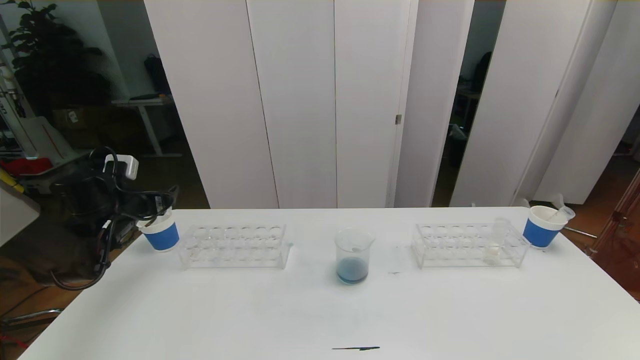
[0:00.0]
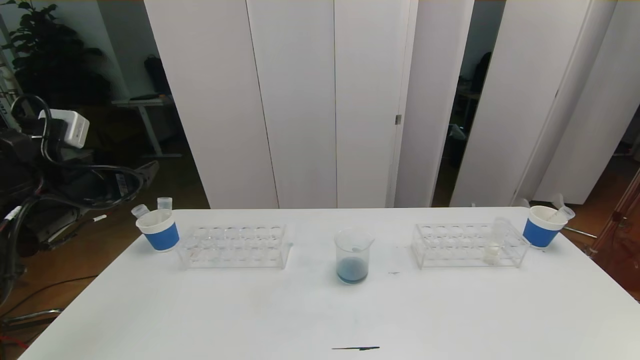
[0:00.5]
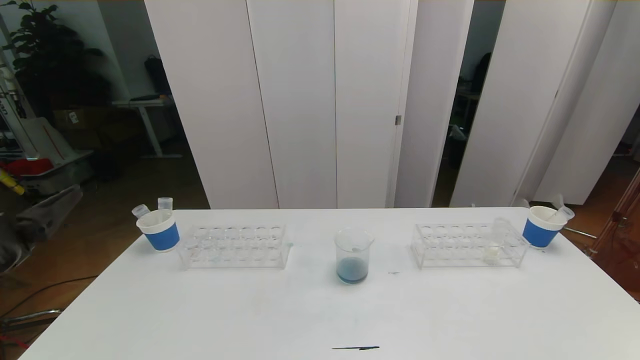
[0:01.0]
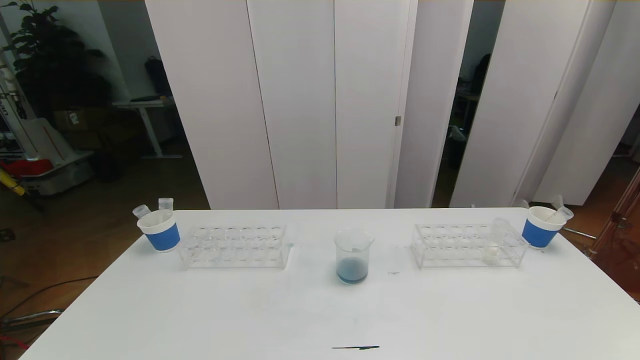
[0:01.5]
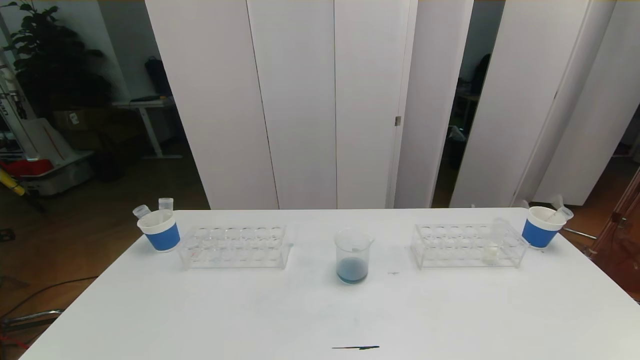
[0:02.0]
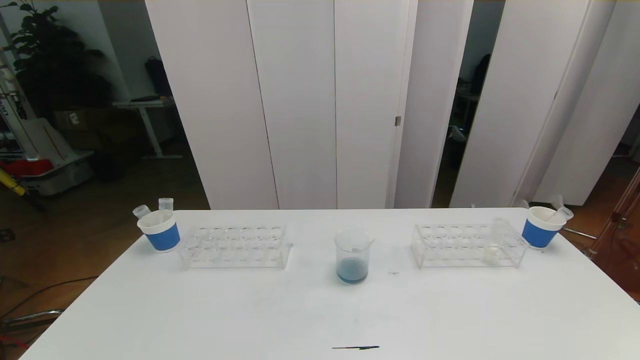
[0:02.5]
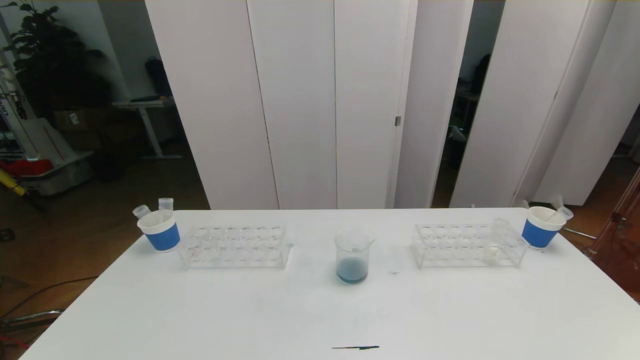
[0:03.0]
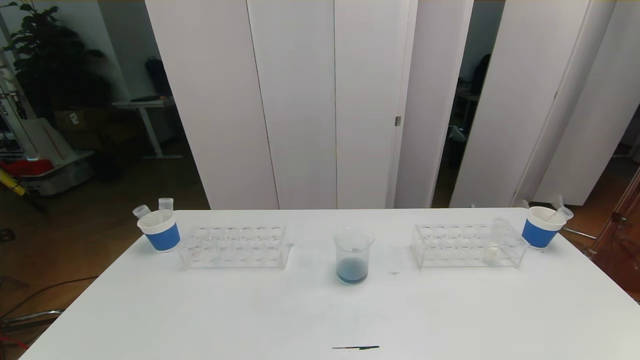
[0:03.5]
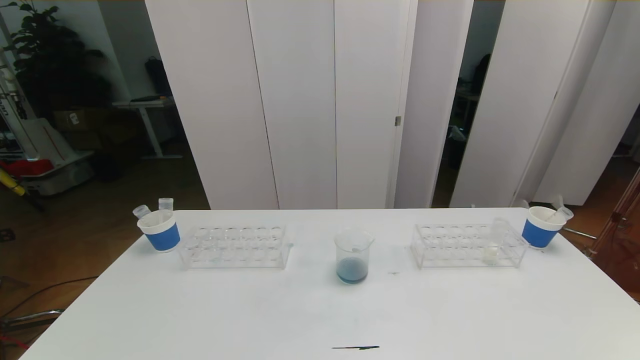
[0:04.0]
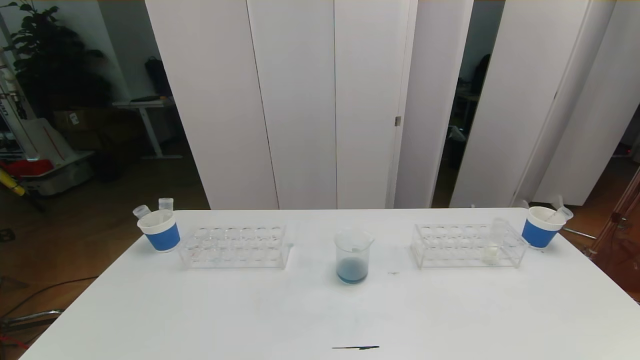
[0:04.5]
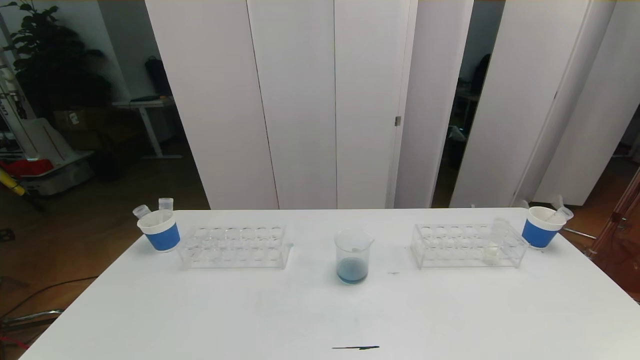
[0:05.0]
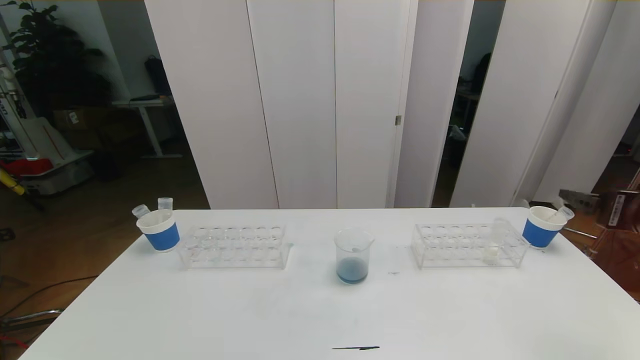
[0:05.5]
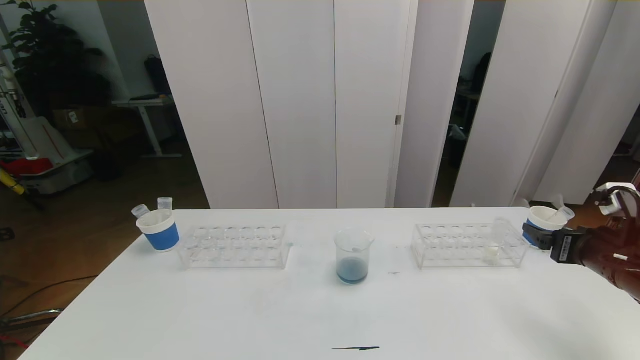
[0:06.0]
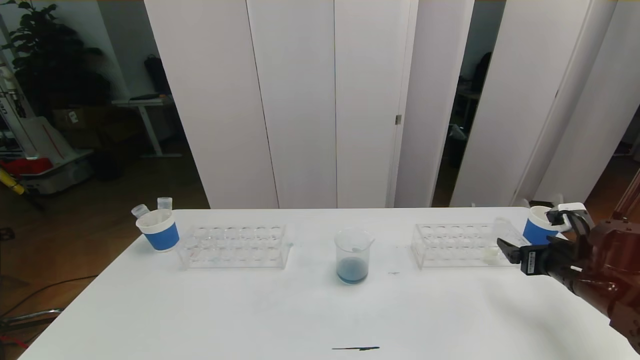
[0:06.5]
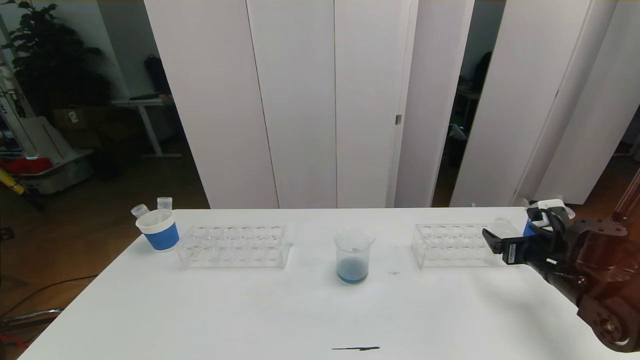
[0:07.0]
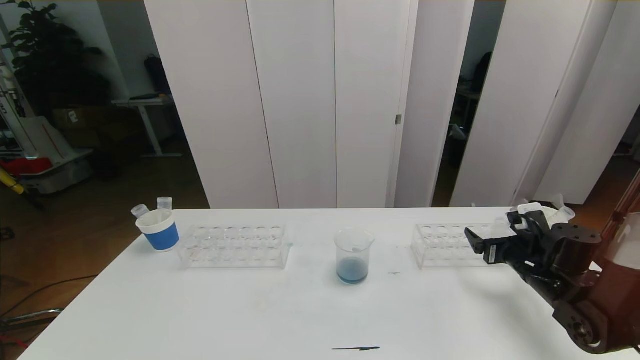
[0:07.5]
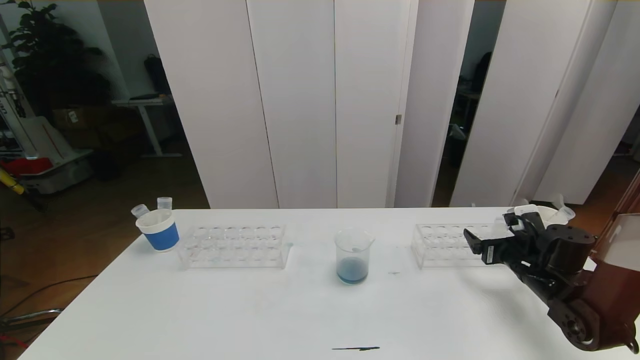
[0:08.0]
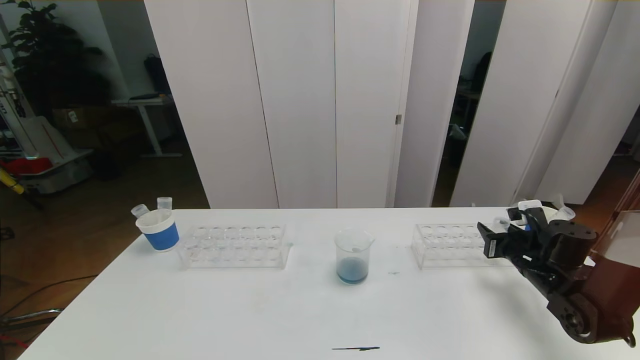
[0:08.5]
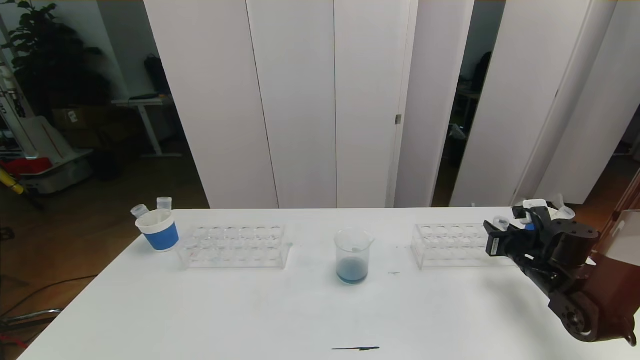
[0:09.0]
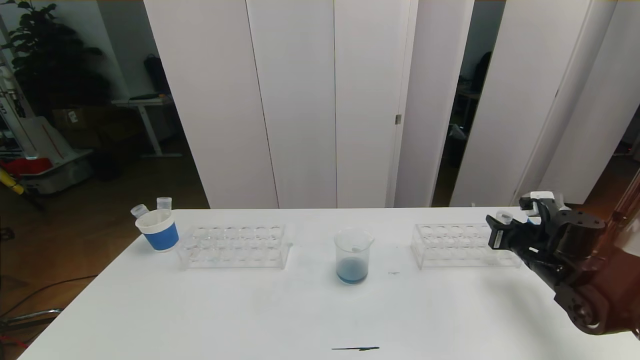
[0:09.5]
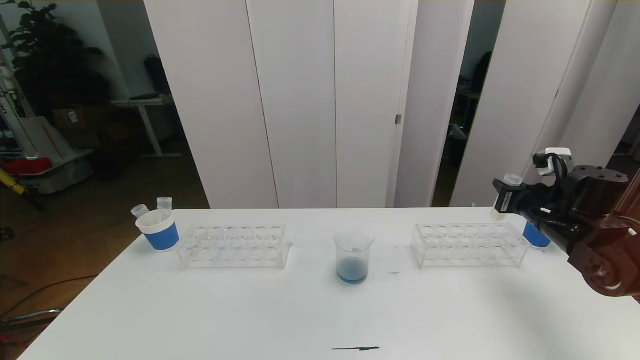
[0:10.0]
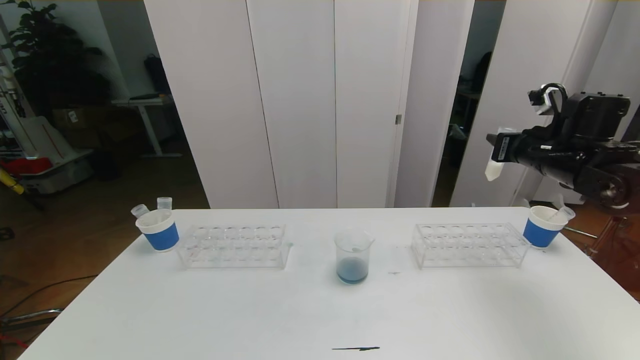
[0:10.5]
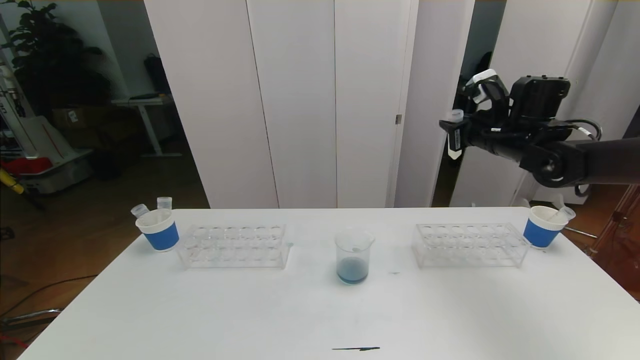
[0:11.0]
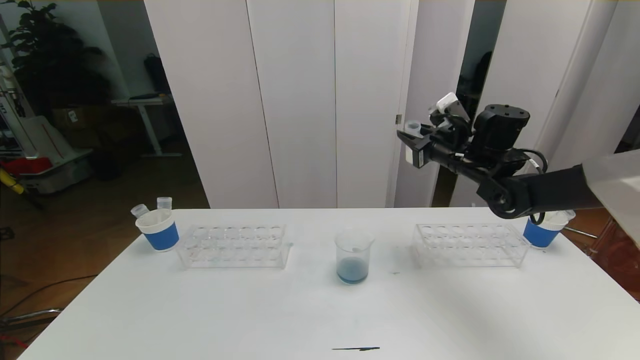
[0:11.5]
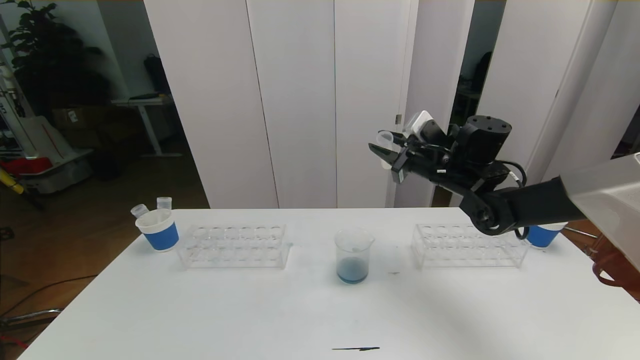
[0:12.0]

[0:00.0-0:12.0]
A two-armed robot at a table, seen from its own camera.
Task of the whole recording: pick up the test tube with red pigment the test tube with blue pigment and the test tube with white pigment by grippers and pour them into the beaker.
0:00.0 to 0:02.0: The left gripper moves backward, some 40 cm.
0:04.0 to 0:06.0: The right gripper is displaced forward by about 30 cm.
0:06.0 to 0:08.0: The right gripper moves downward and forward, about 10 cm.
0:08.0 to 0:10.0: The right gripper is displaced upward by some 10 cm, and closes up.
0:10.0 to 0:12.0: The right gripper goes some 20 cm to the left and forward.

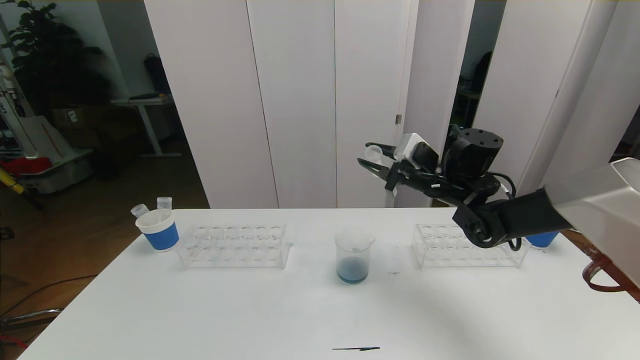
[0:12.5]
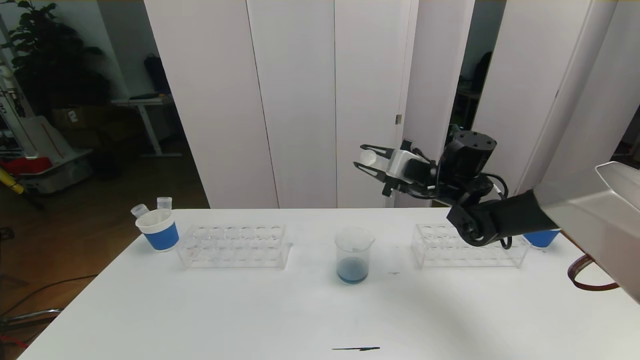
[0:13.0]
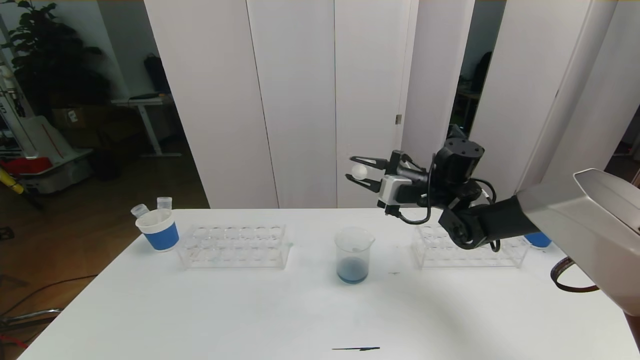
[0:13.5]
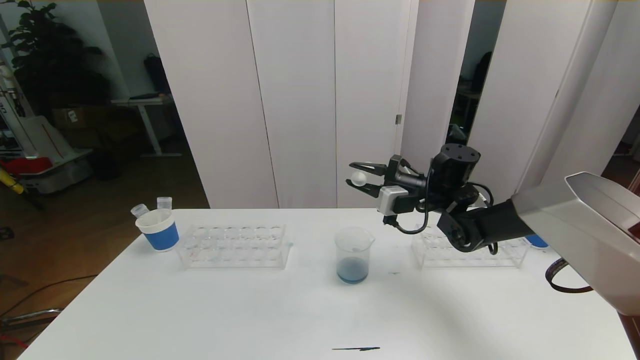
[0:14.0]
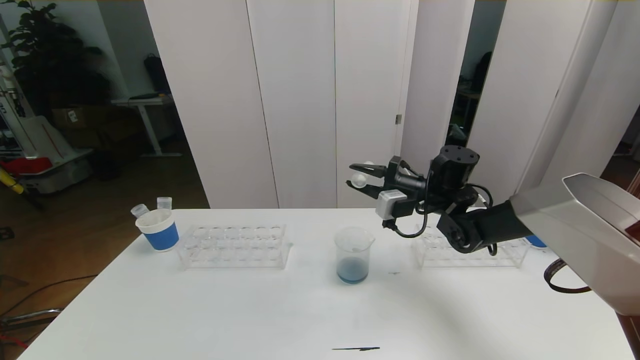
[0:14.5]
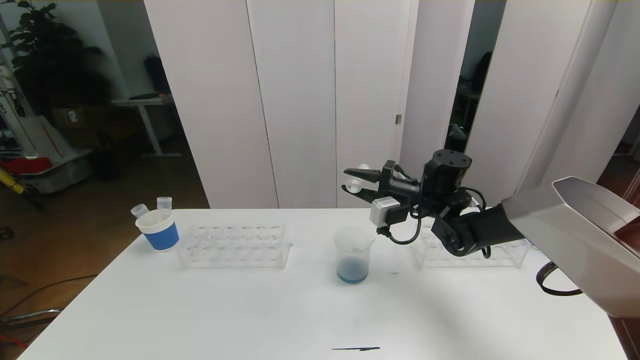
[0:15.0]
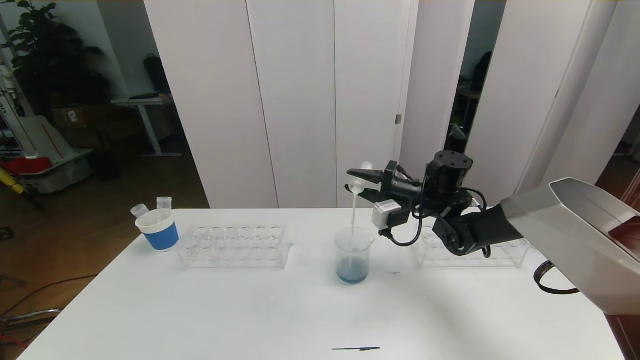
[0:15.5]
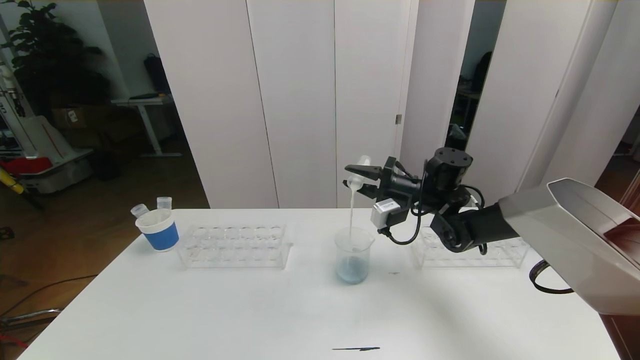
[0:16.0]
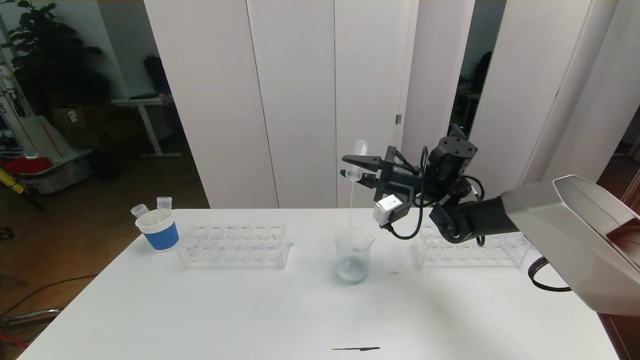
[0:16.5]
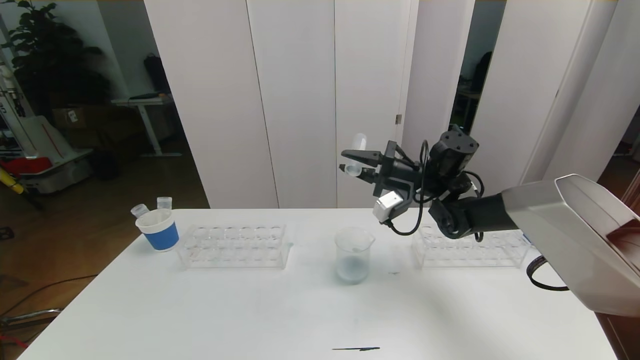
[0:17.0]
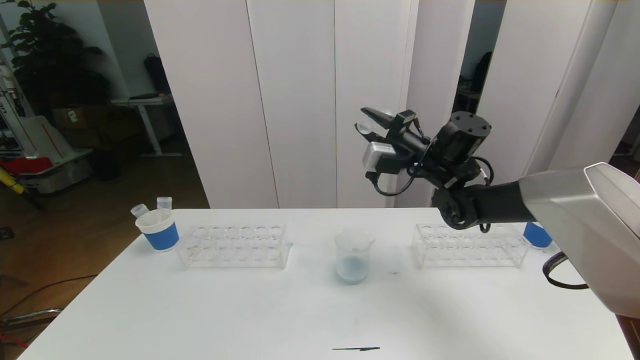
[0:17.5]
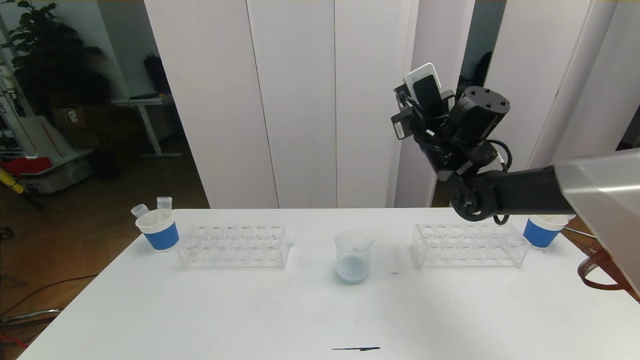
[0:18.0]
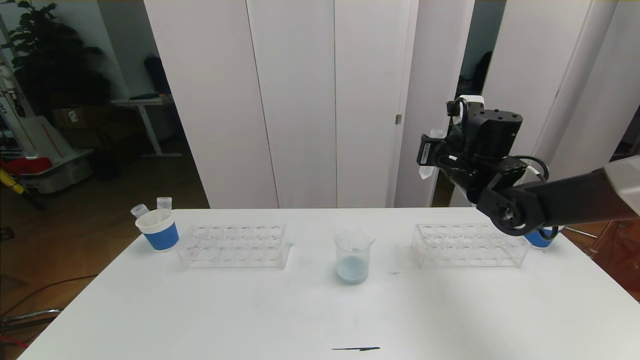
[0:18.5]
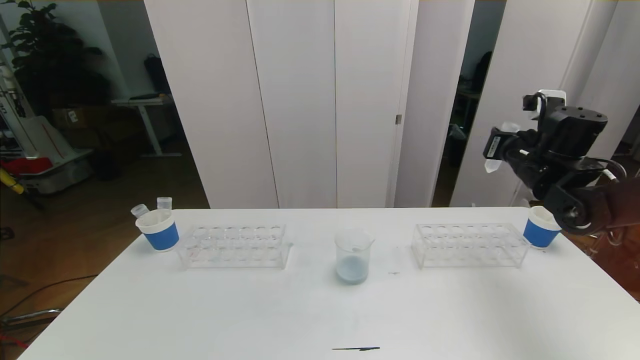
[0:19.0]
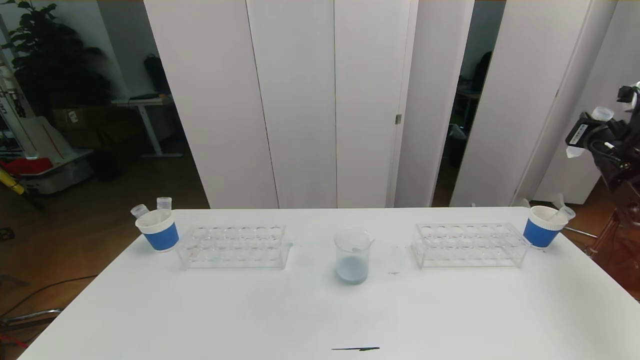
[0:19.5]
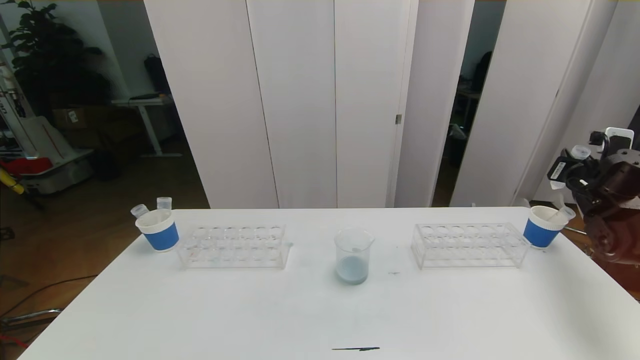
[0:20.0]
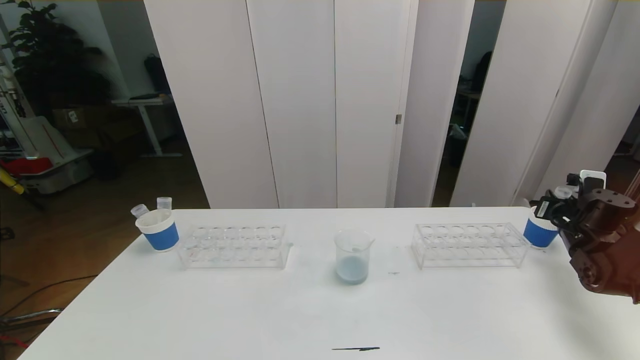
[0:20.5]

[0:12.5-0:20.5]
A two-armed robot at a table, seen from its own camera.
Task of the whole recording: pick up the test tube with red pigment the test tube with blue pigment and the test tube with white pigment by grippers and pour them into the beaker.
0:16.5 to 0:18.5: The right gripper is displaced to the right by some 5 cm.
0:18.5 to 0:20.5: The right gripper shifts approximately 30 cm to the right and downward.
